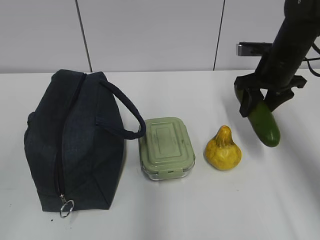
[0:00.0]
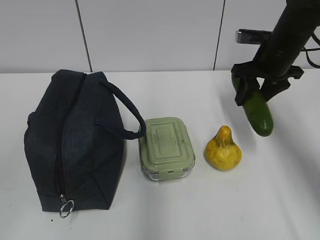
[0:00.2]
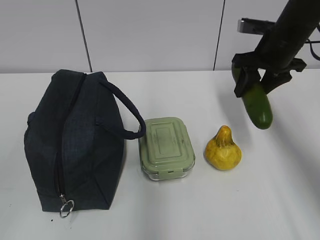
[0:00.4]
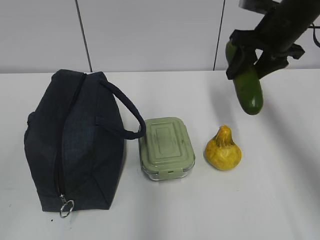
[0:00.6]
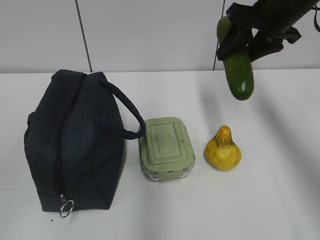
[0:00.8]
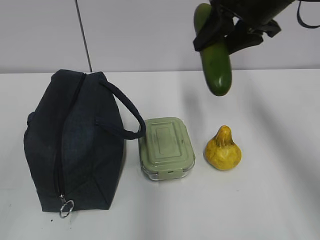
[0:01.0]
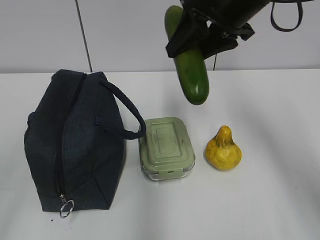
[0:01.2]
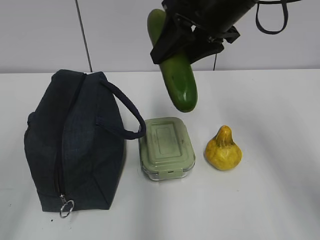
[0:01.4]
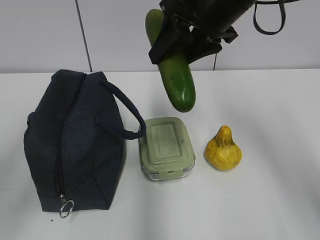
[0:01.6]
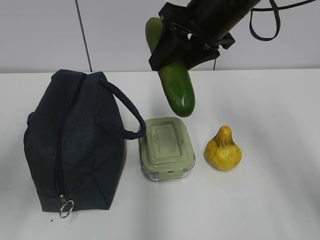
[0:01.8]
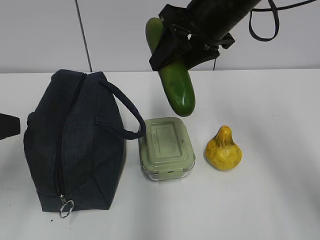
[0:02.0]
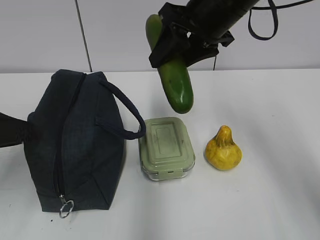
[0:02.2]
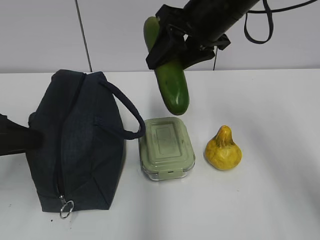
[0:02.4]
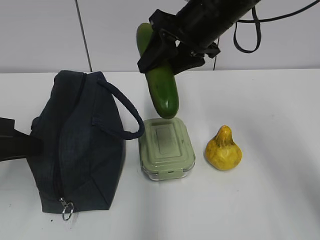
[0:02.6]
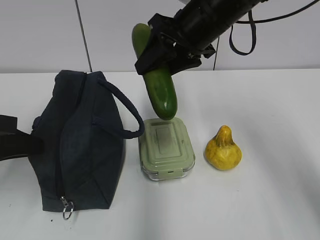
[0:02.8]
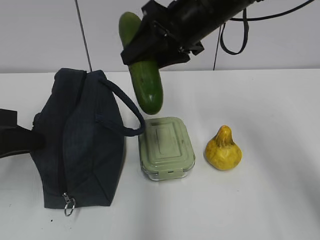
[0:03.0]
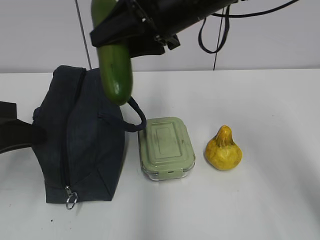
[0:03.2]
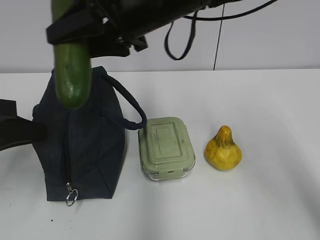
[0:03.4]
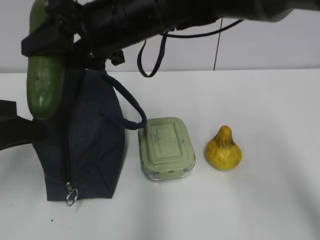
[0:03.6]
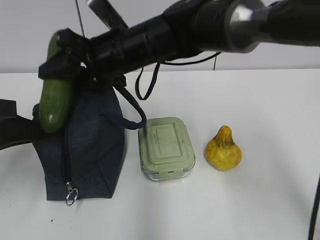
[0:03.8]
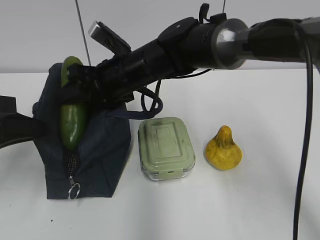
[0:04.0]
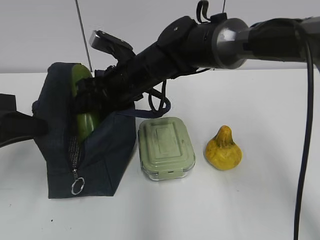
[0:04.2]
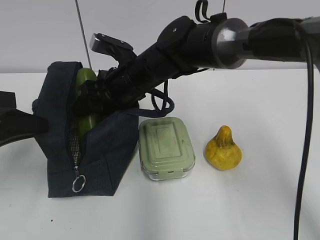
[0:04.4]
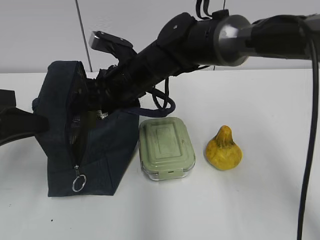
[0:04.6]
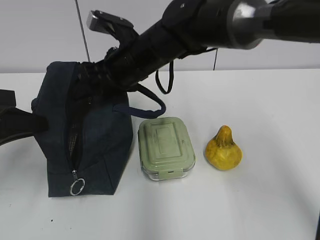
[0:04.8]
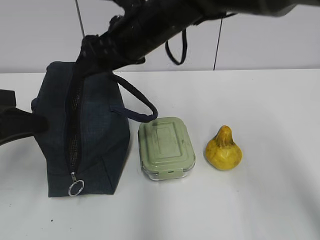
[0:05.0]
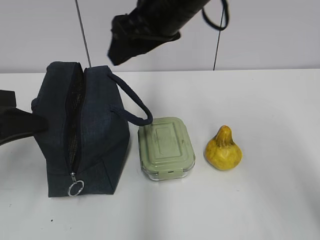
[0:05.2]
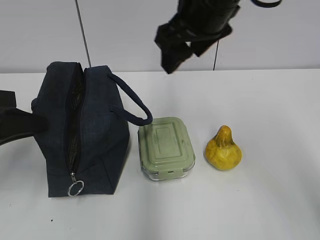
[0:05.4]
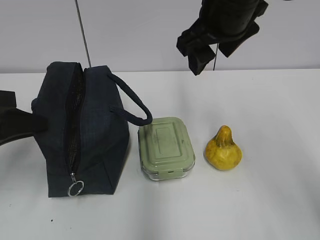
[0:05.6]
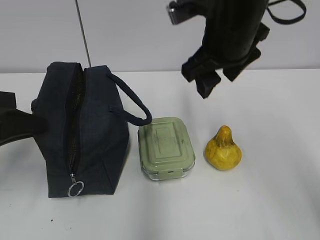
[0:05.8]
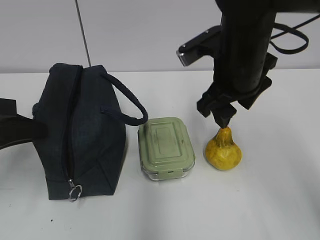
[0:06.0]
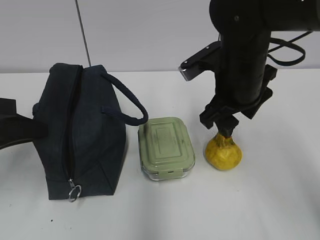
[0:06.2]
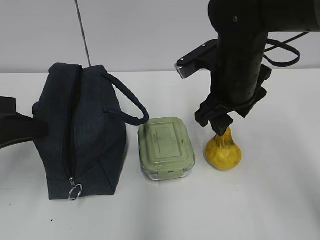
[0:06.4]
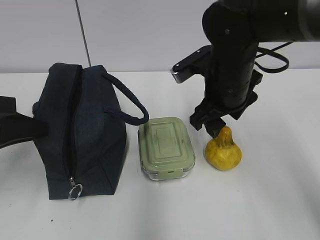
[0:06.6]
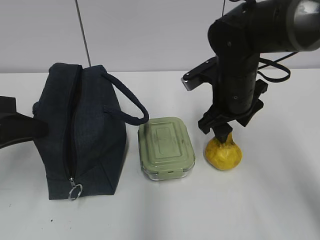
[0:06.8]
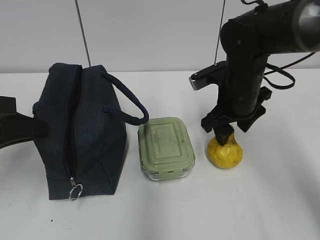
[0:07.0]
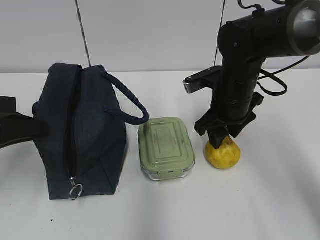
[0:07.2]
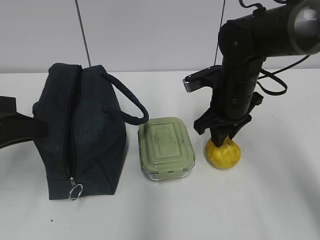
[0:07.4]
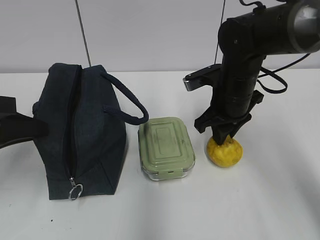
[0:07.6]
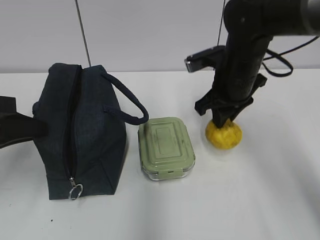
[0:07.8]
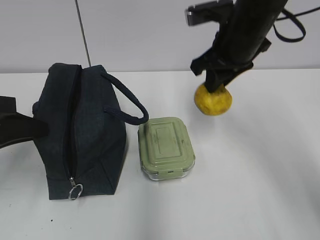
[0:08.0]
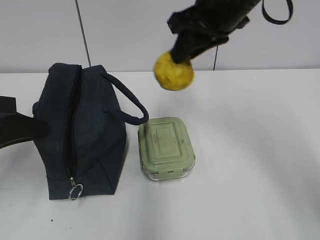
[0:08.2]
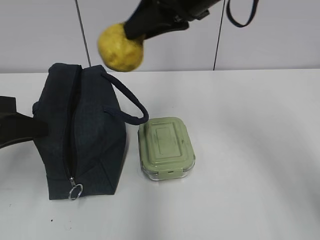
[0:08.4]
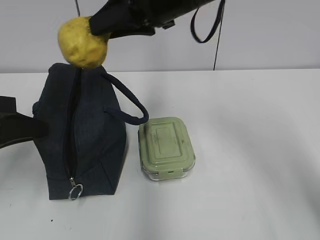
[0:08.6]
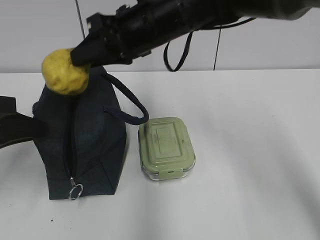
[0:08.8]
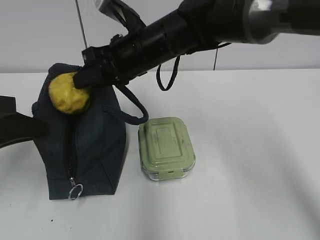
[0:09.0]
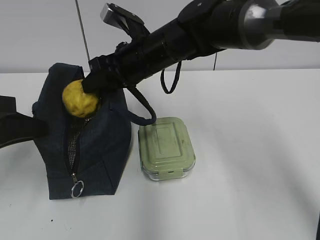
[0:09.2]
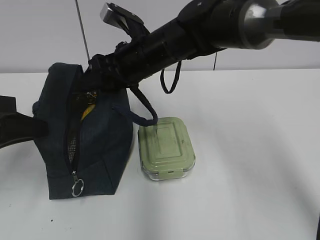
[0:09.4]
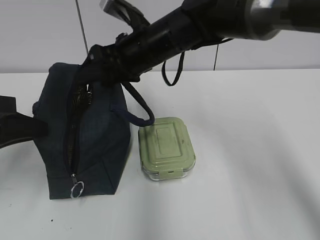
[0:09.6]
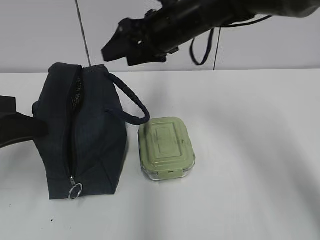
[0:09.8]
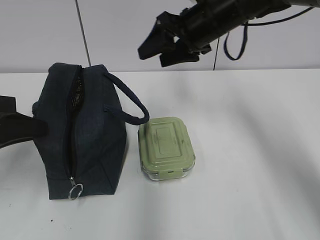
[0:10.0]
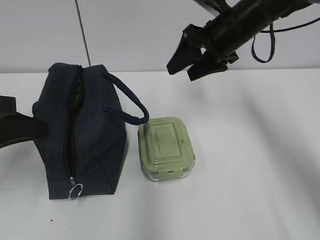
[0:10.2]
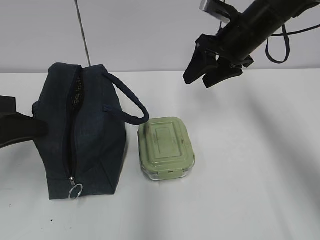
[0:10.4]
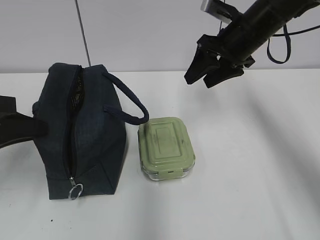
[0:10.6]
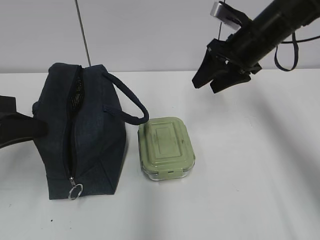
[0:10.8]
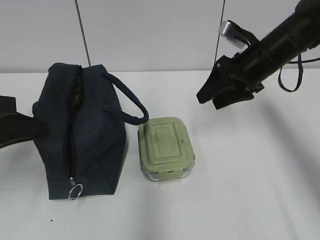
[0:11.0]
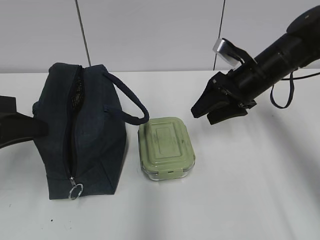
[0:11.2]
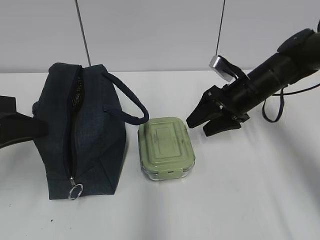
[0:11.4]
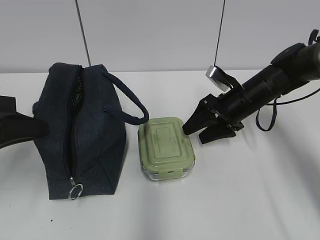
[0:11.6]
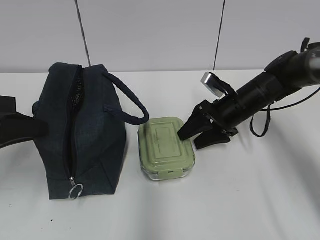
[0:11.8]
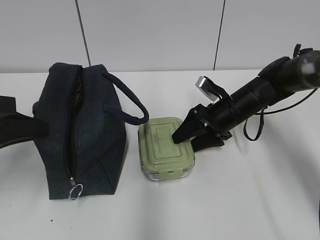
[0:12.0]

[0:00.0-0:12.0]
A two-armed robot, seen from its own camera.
0:00.0 to 0:01.6: The right gripper travels to the left, upward and backward by roughly 20 cm, while the left gripper moves forward, some 10 cm.
0:01.6 to 0:03.0: The left gripper is displaced forward and downward by roughly 15 cm, and closes its fingers.
0:03.0 to 0:04.4: The right gripper heads downward and to the left, covering some 15 cm.
0:04.4 to 0:06.0: The right gripper travels to the right, backward and upward by approximately 15 cm.
0:06.0 to 0:07.6: The right gripper is displaced downward by about 10 cm, and closes its fingers.
0:07.6 to 0:09.0: The right gripper moves to the left and upward, approximately 15 cm.
0:09.0 to 0:10.4: The right gripper travels to the right by some 15 cm, and opens.
0:10.4 to 0:12.0: The right gripper travels downward by approximately 15 cm.

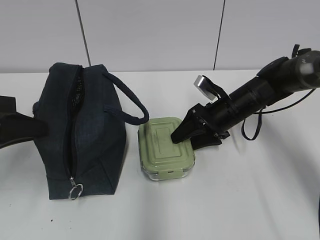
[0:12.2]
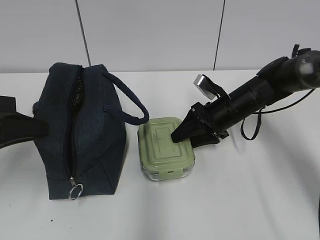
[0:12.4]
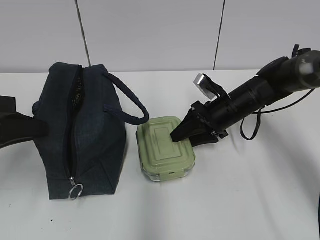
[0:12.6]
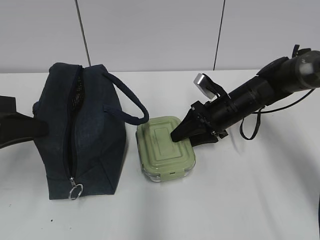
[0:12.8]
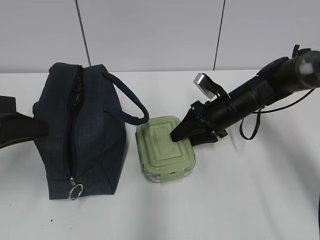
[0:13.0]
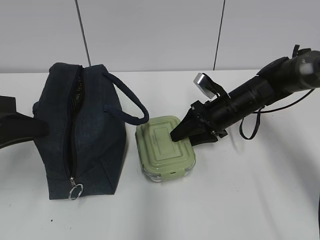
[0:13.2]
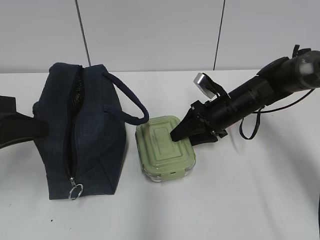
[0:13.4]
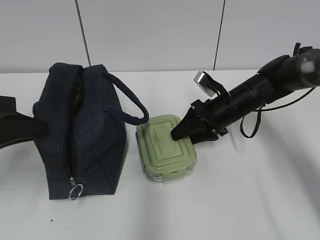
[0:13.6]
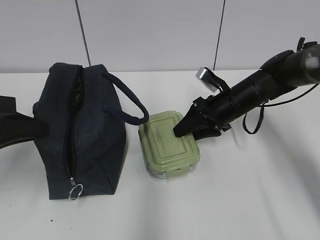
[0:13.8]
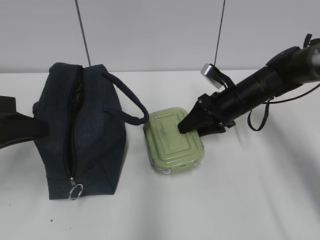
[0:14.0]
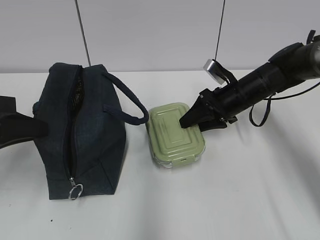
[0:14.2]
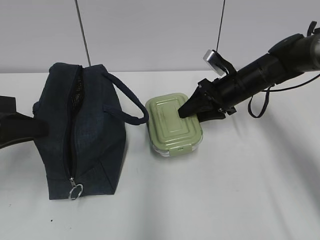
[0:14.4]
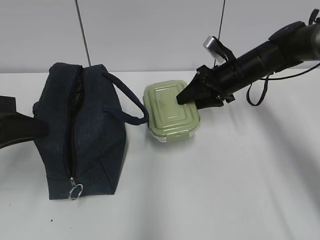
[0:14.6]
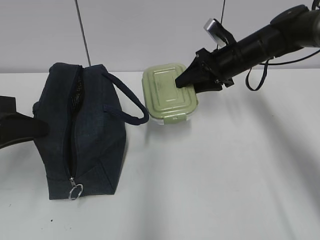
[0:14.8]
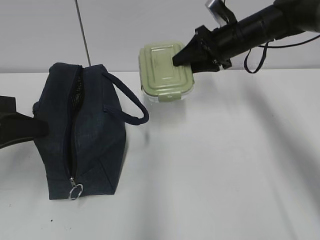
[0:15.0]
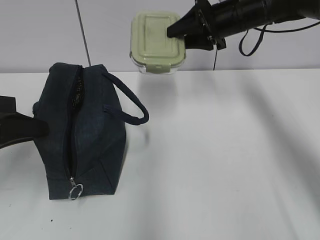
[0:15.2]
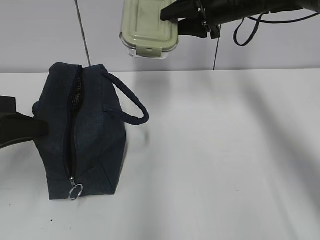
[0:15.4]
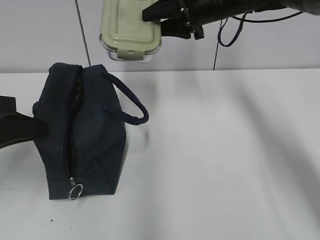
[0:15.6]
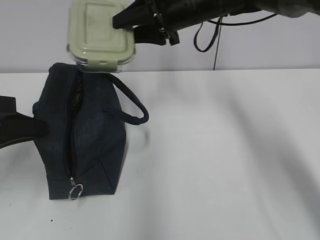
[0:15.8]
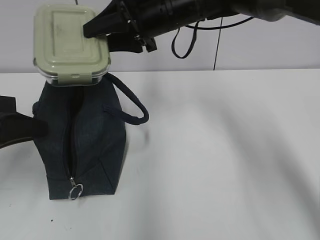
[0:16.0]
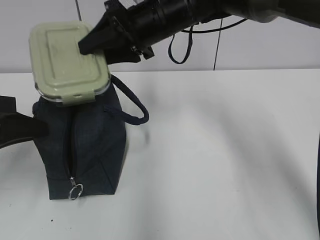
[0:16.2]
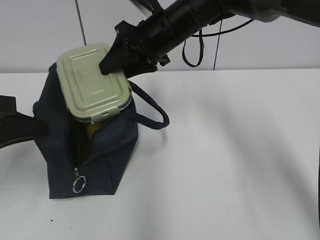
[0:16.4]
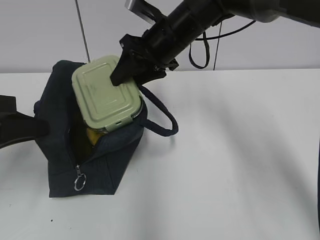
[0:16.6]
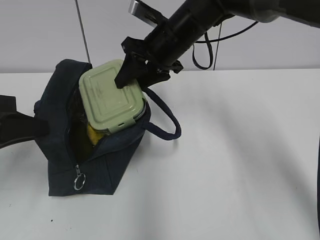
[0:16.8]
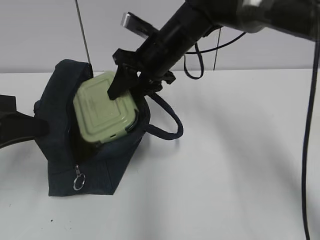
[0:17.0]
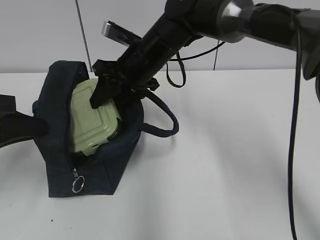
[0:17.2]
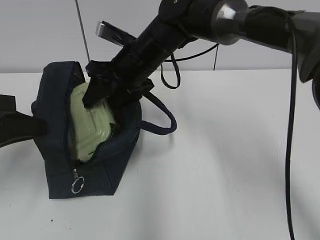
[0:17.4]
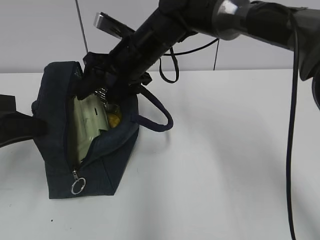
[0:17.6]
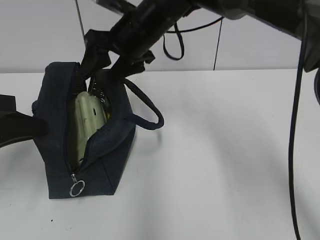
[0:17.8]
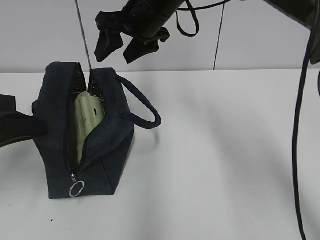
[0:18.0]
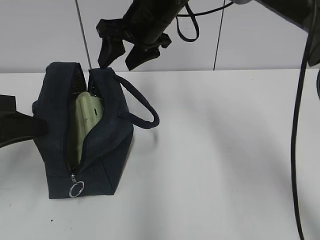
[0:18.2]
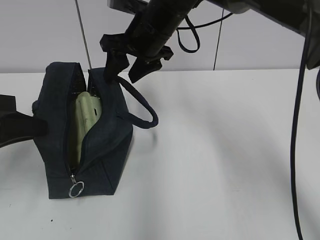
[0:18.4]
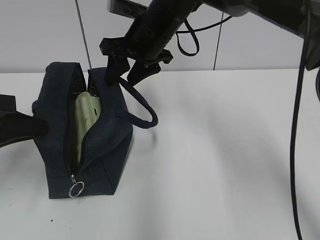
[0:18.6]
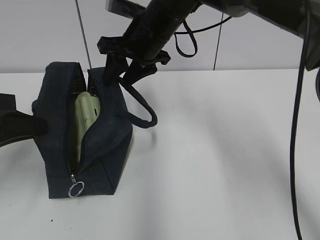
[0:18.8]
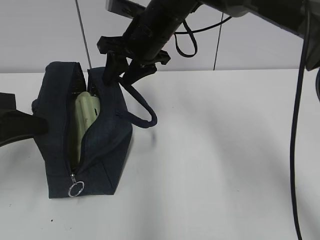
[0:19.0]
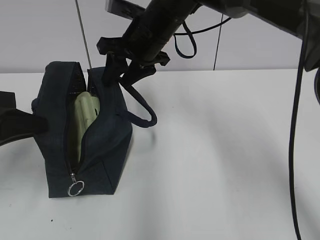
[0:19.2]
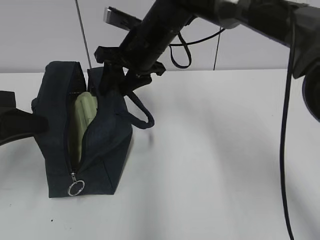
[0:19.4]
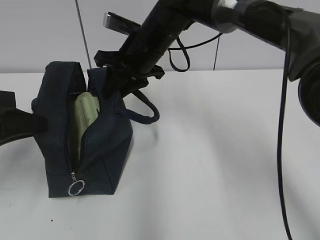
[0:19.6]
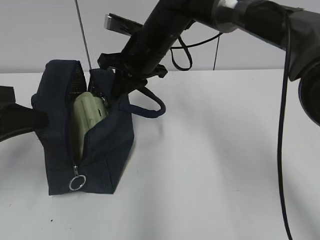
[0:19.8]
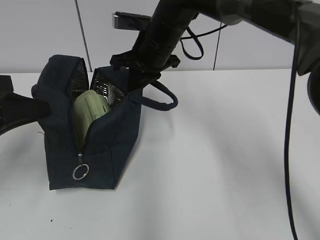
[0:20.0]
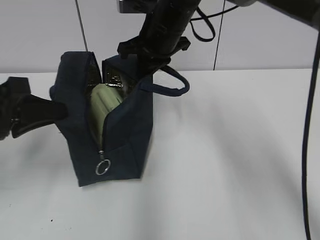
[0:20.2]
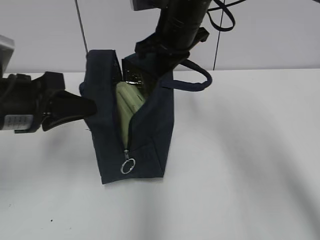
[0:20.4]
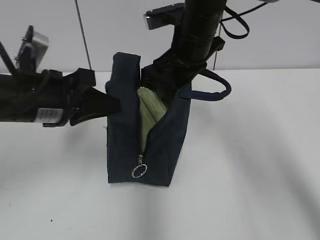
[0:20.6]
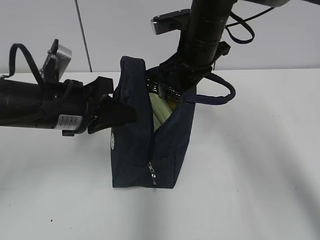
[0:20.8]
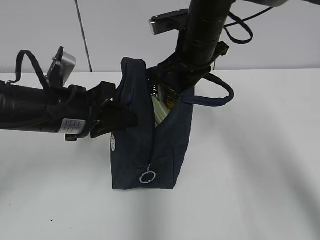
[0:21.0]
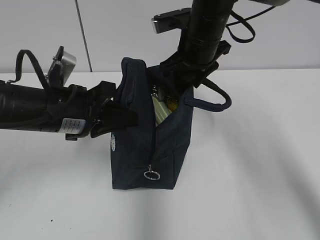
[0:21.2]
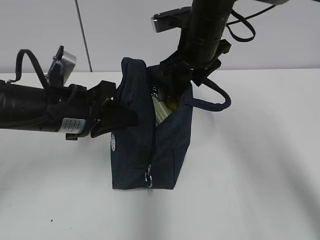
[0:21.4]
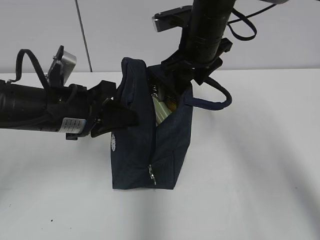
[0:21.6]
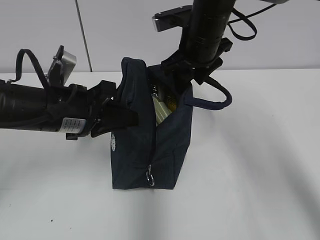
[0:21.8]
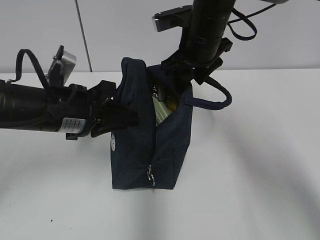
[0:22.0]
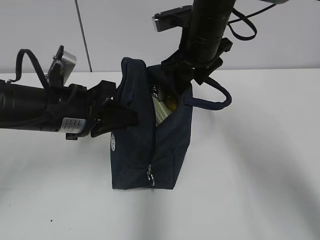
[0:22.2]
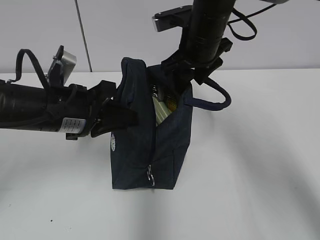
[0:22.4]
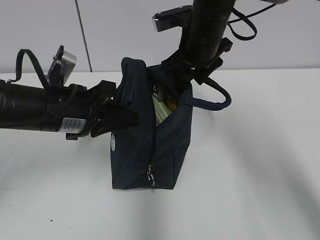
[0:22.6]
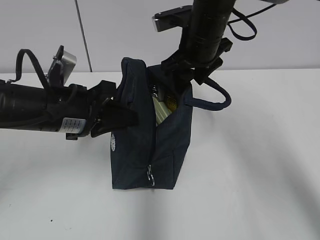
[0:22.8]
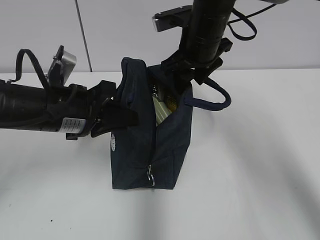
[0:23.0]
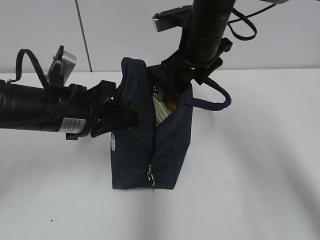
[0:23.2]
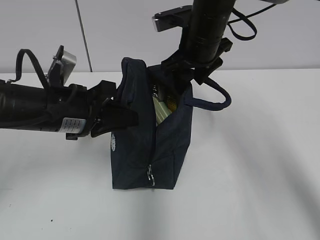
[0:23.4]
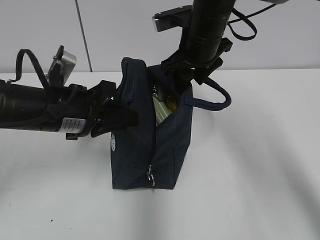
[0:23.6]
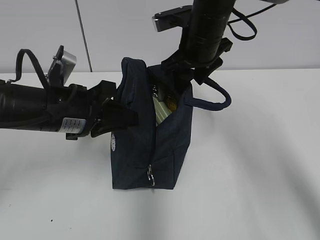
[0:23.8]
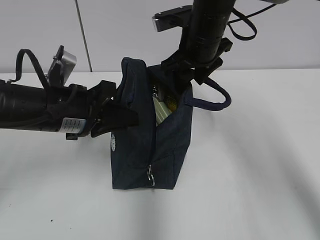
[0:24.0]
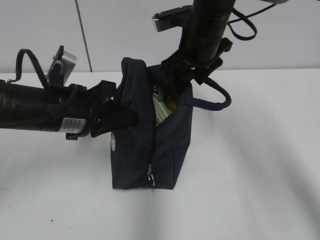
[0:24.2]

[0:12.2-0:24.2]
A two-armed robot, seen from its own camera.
0:12.2 to 0:13.8: The grippers move only a little.
0:13.8 to 0:15.2: The right gripper moves upward and forward, roughly 15 cm.
0:15.2 to 0:16.6: The right gripper travels to the left and backward by some 15 cm.
0:18.2 to 0:19.8: The right gripper goes roughly 5 cm downward, and closes its fingers.
0:19.8 to 0:21.2: The right gripper is displaced to the right by approximately 10 cm, and opens. The left gripper goes approximately 10 cm to the right and forward.
0:21.2 to 0:24.2: The two grippers keep their place.
